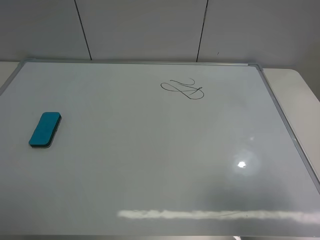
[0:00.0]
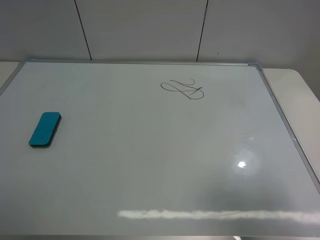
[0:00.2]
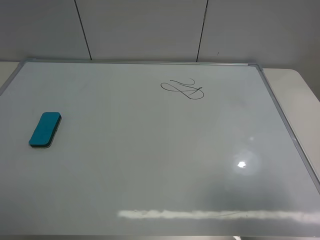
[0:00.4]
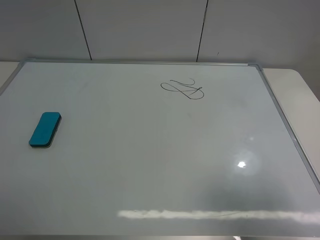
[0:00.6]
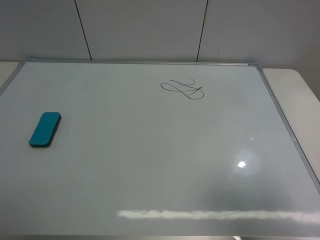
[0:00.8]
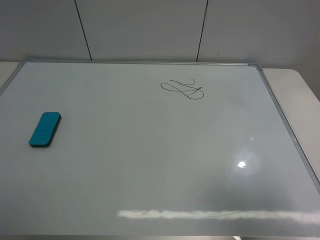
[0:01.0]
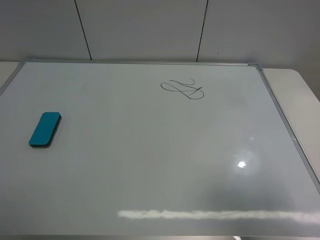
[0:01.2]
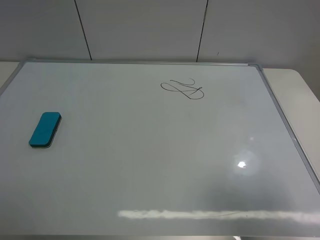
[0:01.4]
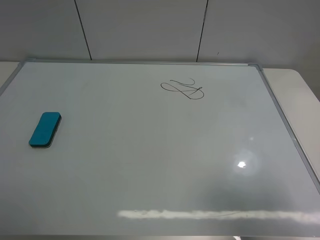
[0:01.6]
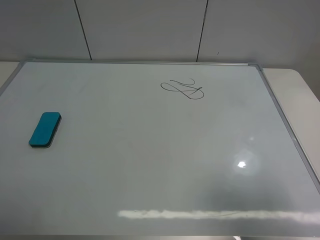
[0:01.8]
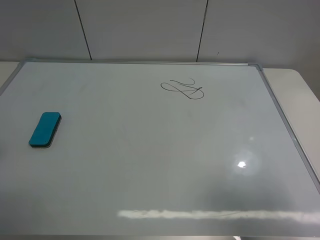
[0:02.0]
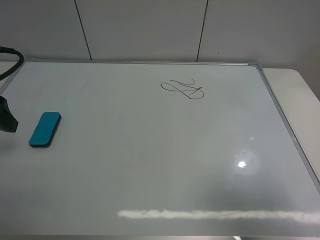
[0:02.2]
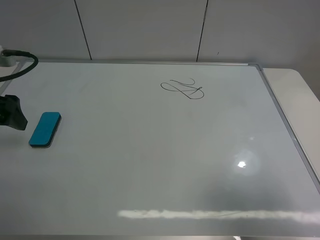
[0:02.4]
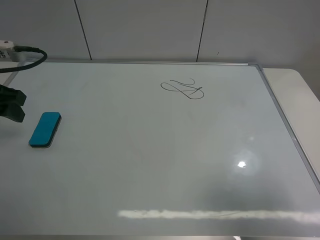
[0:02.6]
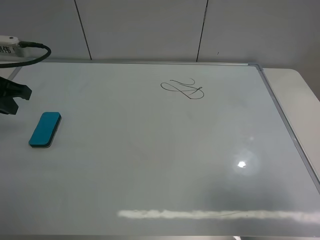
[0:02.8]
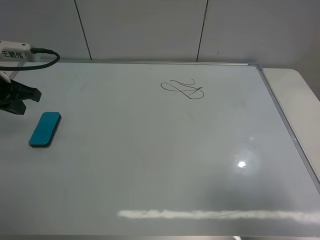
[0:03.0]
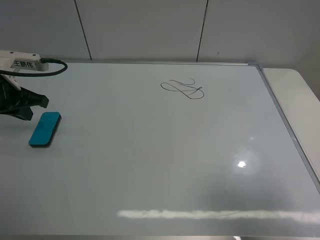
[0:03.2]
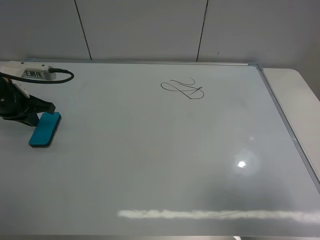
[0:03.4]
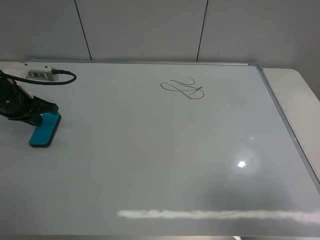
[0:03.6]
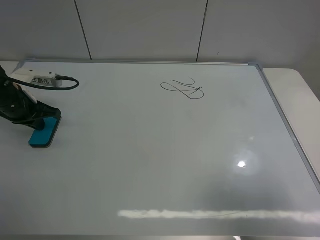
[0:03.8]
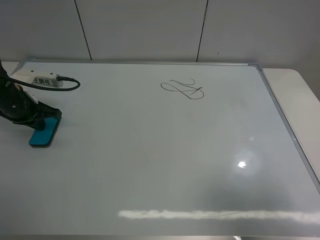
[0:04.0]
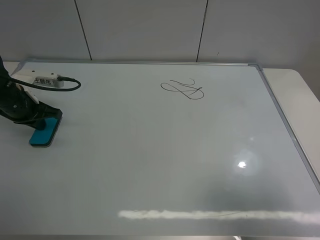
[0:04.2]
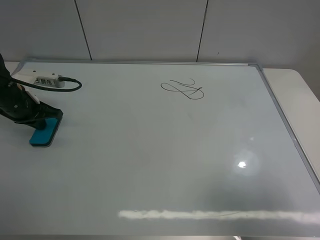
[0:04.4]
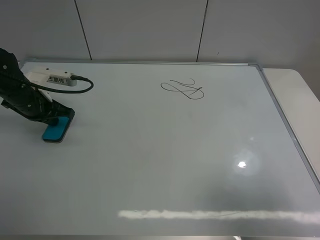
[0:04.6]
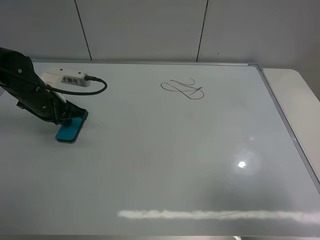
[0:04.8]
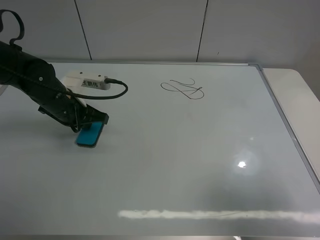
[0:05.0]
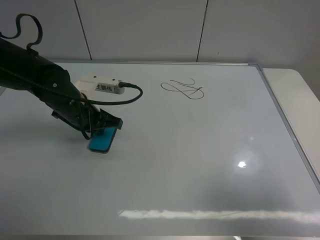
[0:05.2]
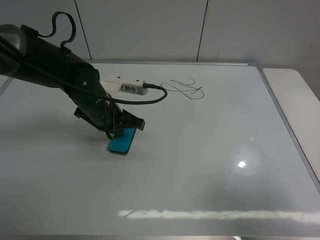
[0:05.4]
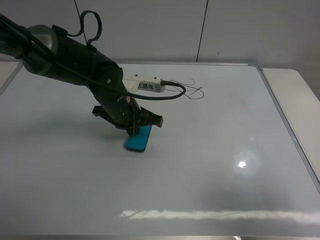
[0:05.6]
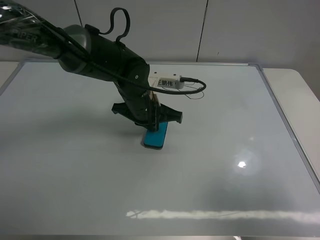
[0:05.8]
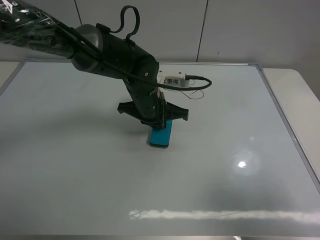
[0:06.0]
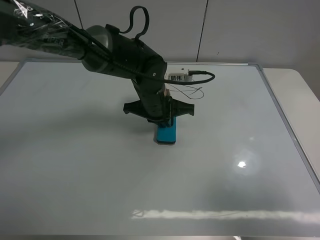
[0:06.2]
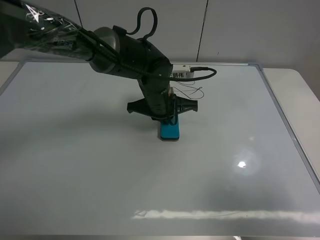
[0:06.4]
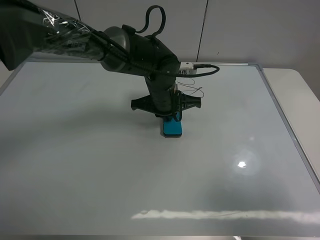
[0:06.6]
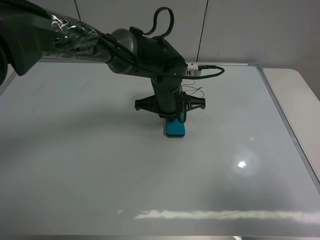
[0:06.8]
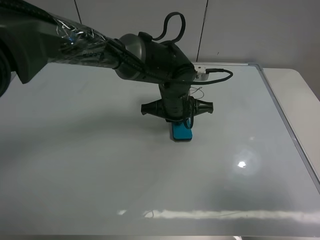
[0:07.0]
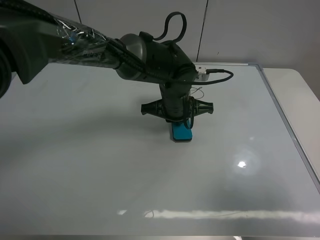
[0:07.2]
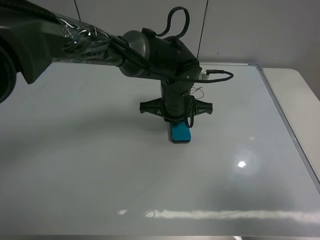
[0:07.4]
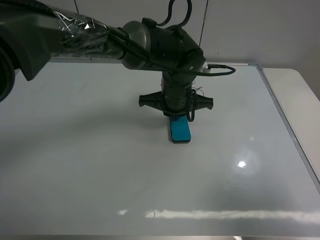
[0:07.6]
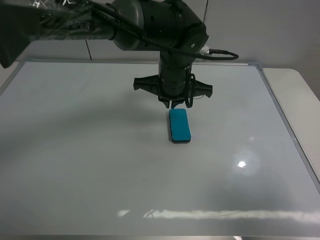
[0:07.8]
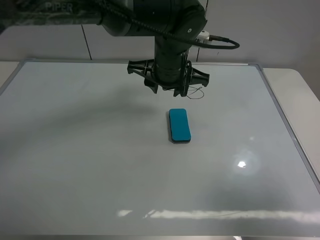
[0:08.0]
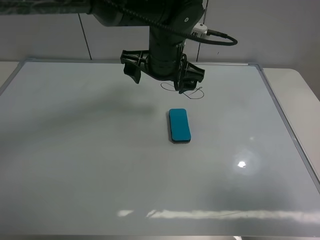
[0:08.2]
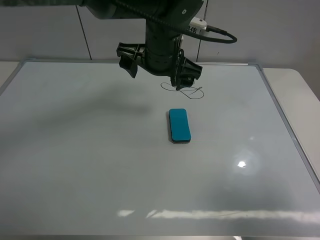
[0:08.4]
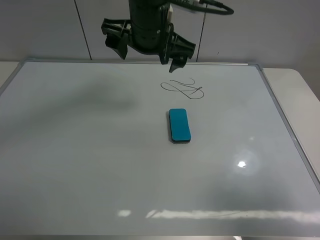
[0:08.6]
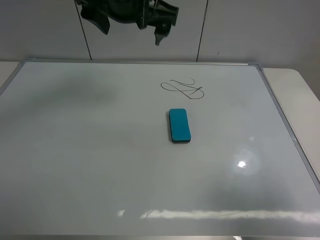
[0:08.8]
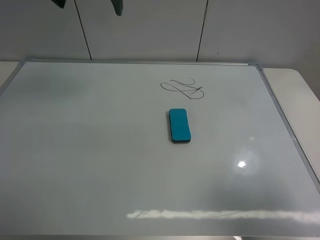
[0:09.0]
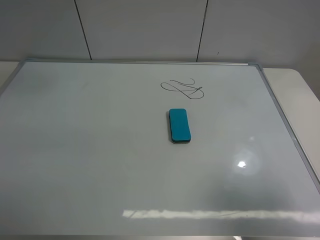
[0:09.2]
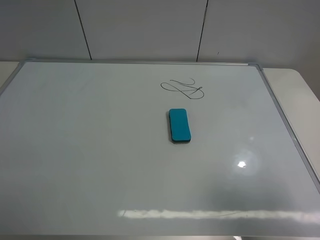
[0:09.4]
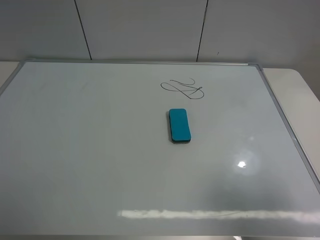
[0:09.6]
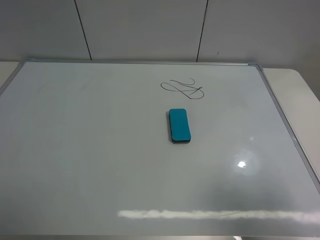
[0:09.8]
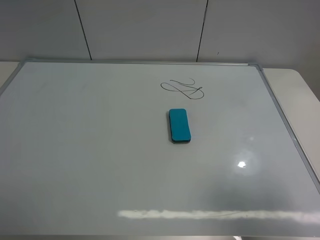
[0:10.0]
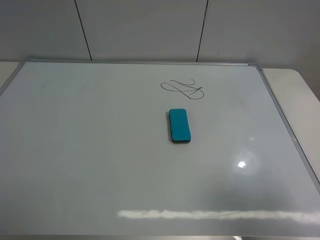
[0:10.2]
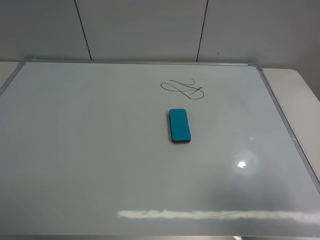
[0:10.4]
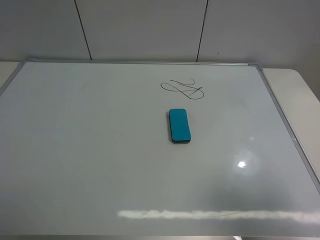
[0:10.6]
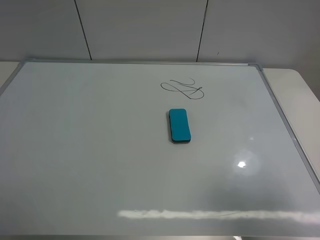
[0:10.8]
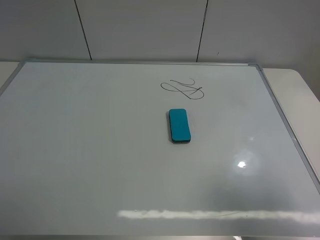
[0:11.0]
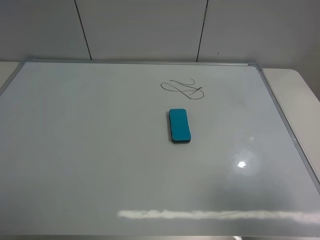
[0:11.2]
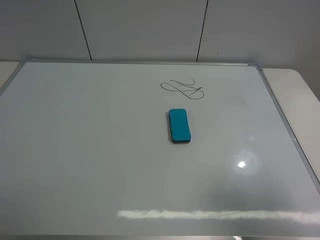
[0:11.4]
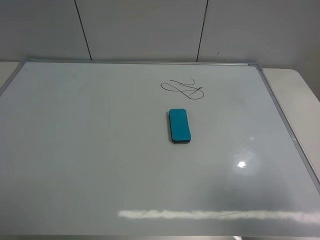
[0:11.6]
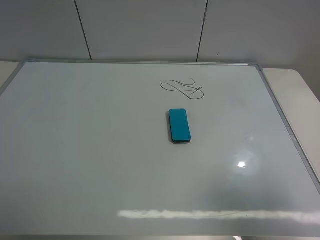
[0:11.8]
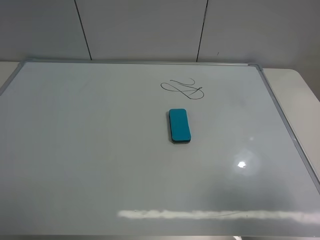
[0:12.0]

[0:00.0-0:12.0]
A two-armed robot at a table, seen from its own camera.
Task of the whole recording: use the left gripper to place the eraser in the right, use the right gripper to pick up the eraser, wipe the notes on the whiteboard clean, and then put it down.
Step, 0:00.0 to 0:07.6: Move the board eraser to the right of the whiteboard with left gripper.
0:01.6 to 0:03.0: The left gripper heads forward, covering approximately 25 cm, and closes its fingers.
0:03.0 to 0:04.4: The left gripper is displaced downward by roughly 10 cm.
0:04.4 to 0:06.0: The left gripper is displaced to the right by about 30 cm.
0:06.0 to 0:07.6: The left gripper is displaced to the right by approximately 5 cm.
0:07.6 to 0:09.0: The left gripper is displaced upward and to the left by some 30 cm, and opens up.

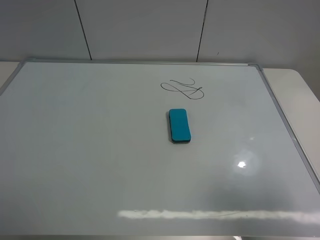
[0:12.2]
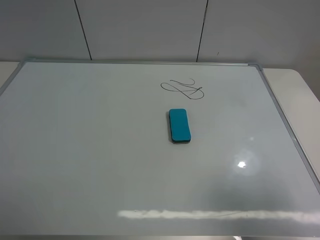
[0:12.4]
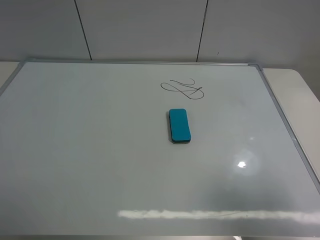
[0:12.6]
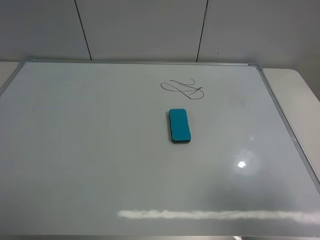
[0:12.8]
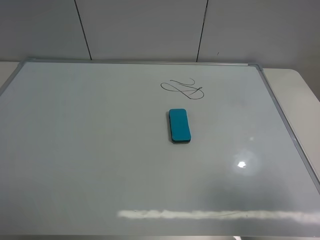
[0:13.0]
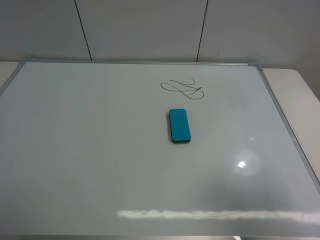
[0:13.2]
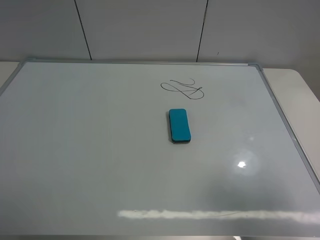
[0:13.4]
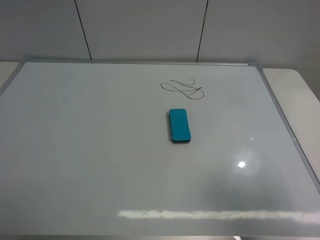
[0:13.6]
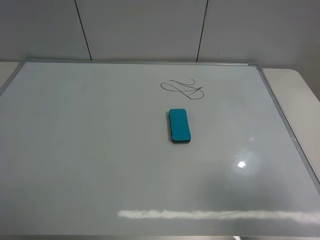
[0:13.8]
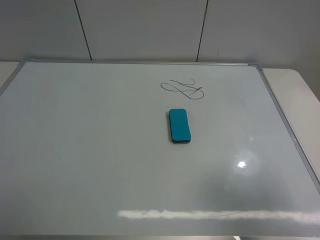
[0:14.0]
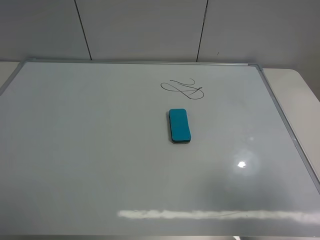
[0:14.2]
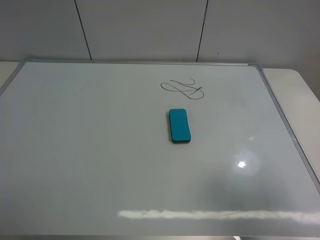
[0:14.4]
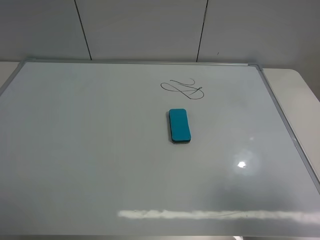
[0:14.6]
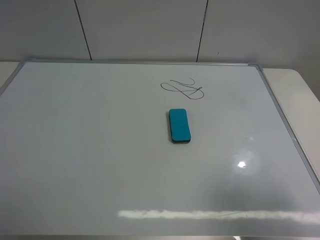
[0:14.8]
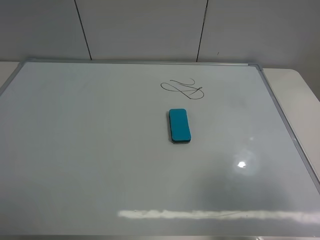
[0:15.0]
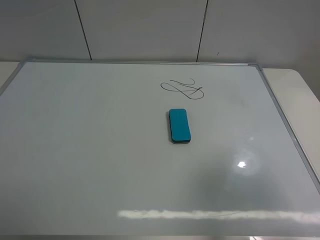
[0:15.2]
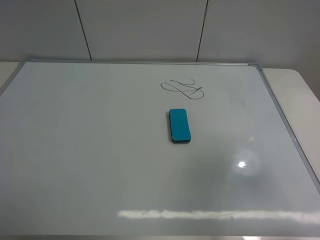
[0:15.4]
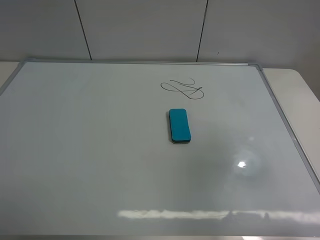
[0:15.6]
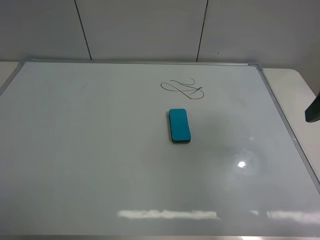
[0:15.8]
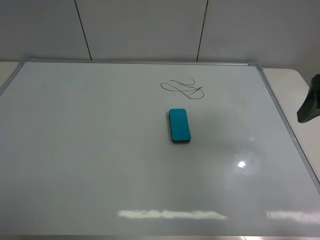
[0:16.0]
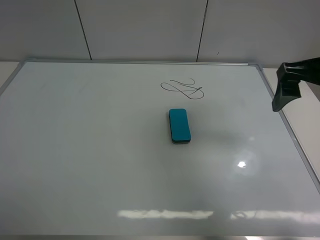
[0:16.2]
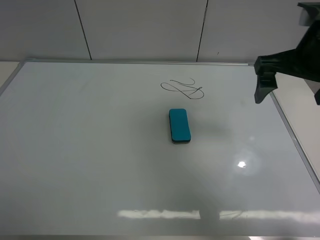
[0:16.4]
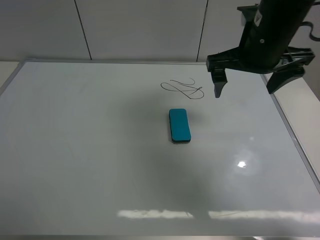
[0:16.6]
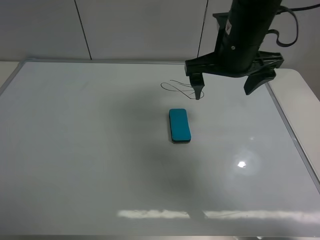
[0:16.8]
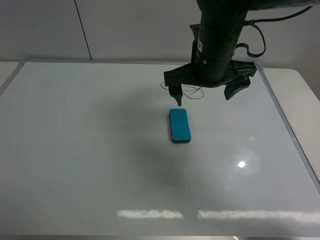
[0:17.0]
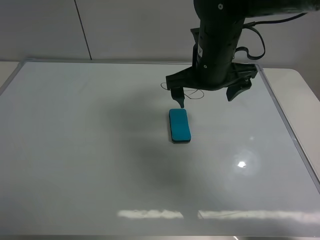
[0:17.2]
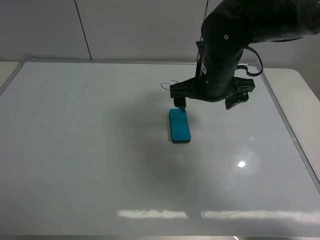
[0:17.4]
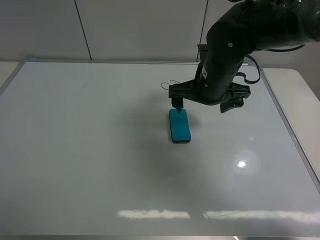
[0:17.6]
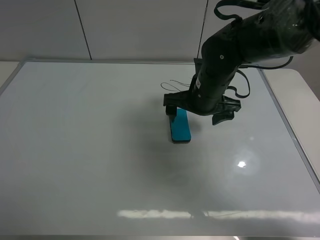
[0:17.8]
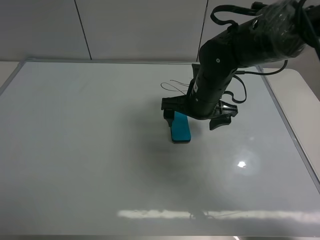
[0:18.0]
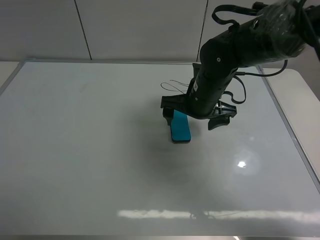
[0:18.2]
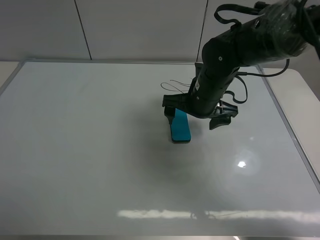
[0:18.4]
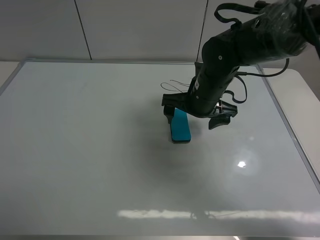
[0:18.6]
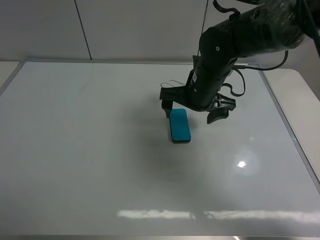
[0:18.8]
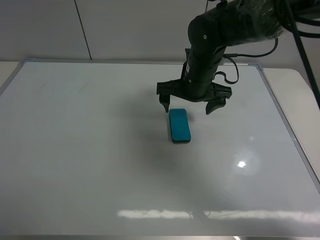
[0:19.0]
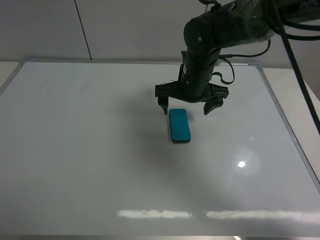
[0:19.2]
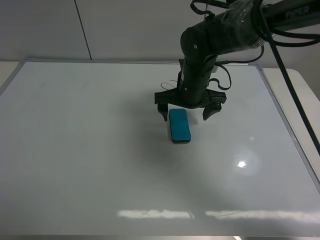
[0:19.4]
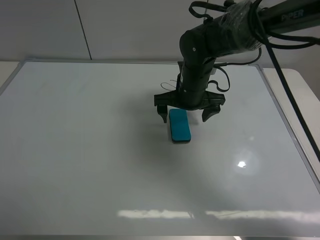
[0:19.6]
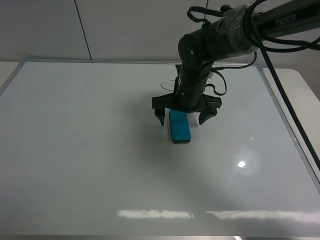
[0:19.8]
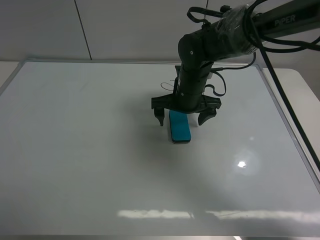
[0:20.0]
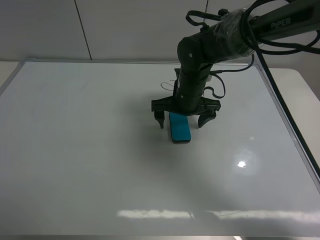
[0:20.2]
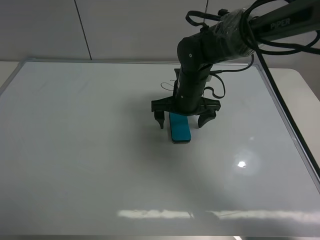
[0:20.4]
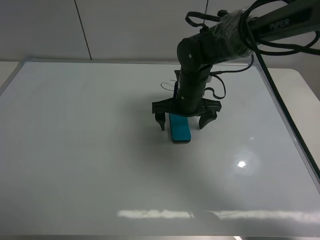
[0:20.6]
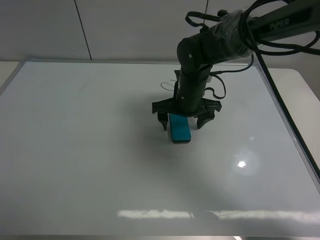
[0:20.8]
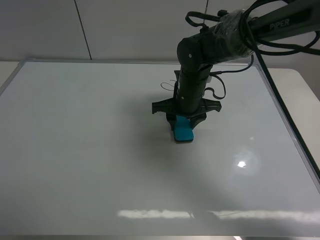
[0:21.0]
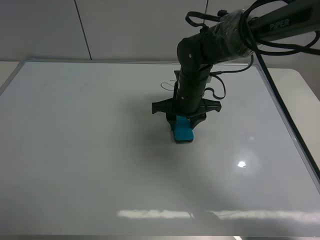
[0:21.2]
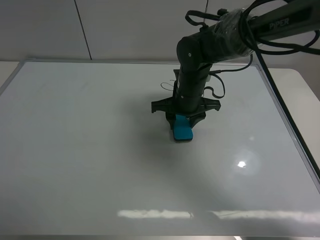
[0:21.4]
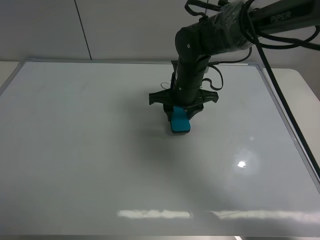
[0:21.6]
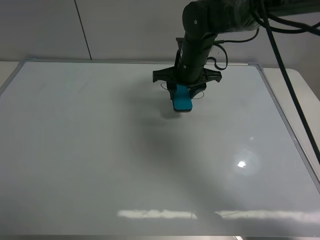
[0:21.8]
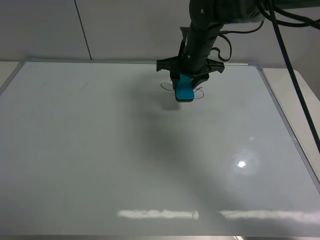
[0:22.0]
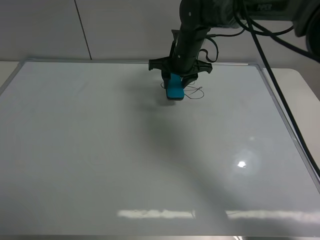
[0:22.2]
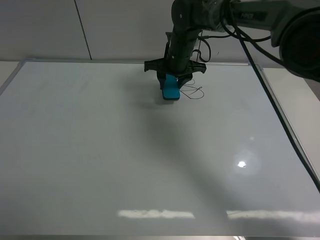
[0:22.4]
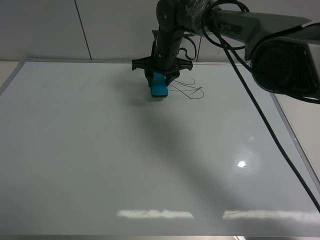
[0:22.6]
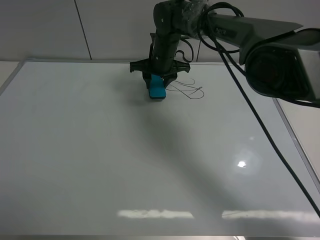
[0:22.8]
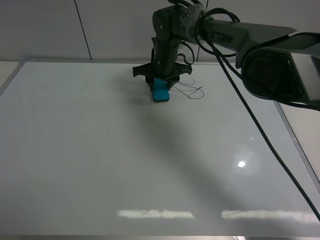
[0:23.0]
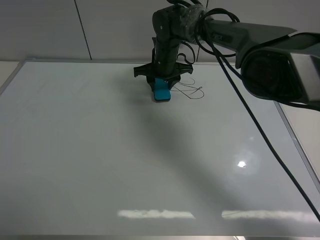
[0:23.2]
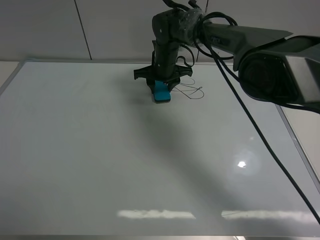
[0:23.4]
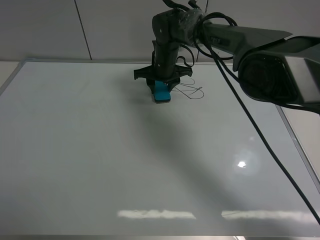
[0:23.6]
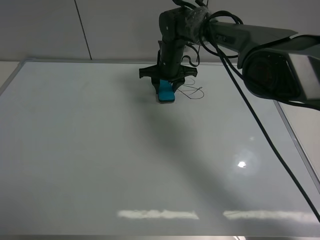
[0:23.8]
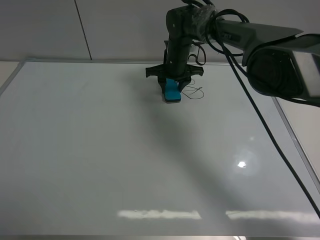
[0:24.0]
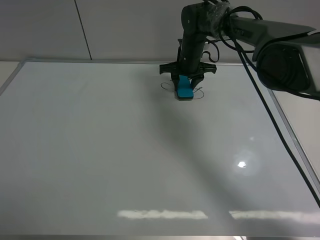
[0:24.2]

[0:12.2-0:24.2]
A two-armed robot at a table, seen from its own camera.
Task of the whole recording: use the left gripper to place the eraser in the right, use the right gripper to pick up the eraser, wipe the notes on the whiteboard clean, and then put it down.
Step, 0:12.2 to 0:21.4: Pick up the board eraser with right gripper.
0:15.2 to 0:16.6: The right gripper moves forward and to the left, approximately 30 cm.
0:16.6 to 0:18.2: The right gripper moves downward and to the left, approximately 15 cm.
0:18.2 to 0:19.8: The right gripper moves roughly 5 cm.
0:19.8 to 0:21.2: The right gripper closes up.
0:21.2 to 0:22.6: The right gripper goes about 15 cm forward and to the left.
0:22.6 to 0:24.2: The right gripper shifts approximately 10 cm to the right.
